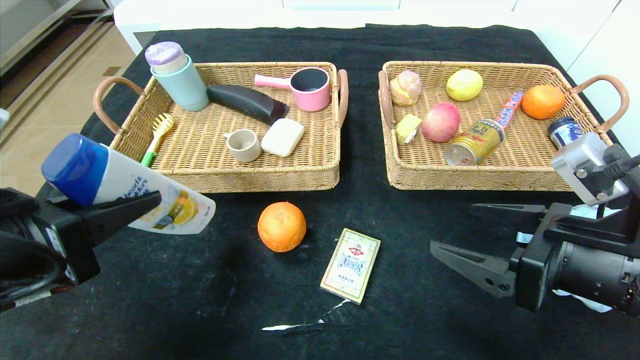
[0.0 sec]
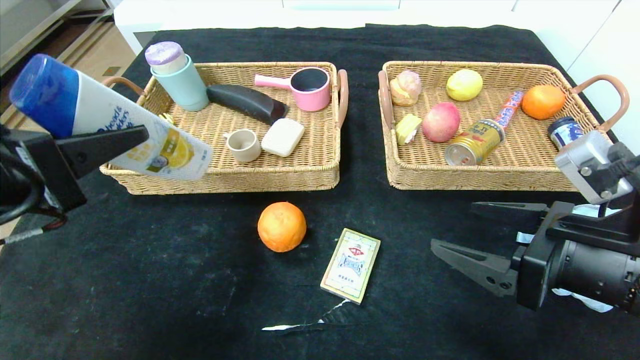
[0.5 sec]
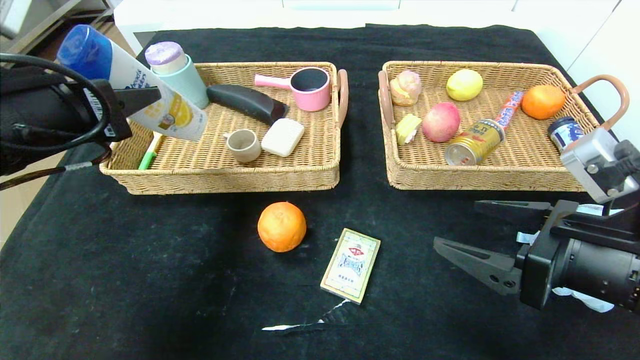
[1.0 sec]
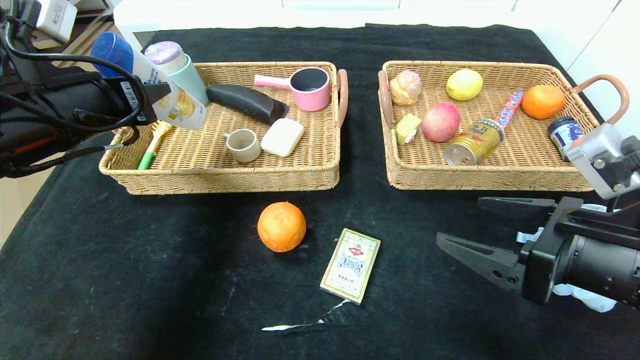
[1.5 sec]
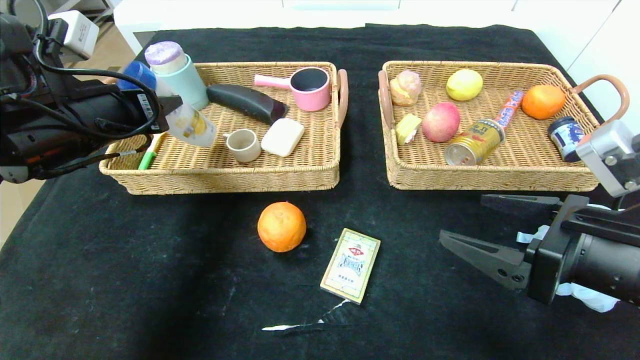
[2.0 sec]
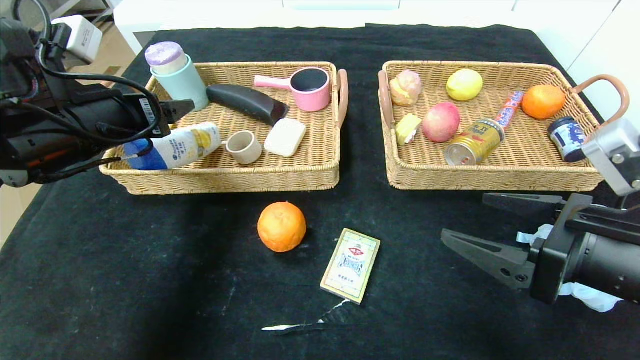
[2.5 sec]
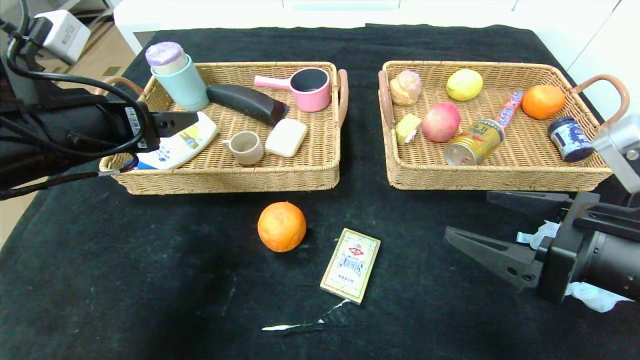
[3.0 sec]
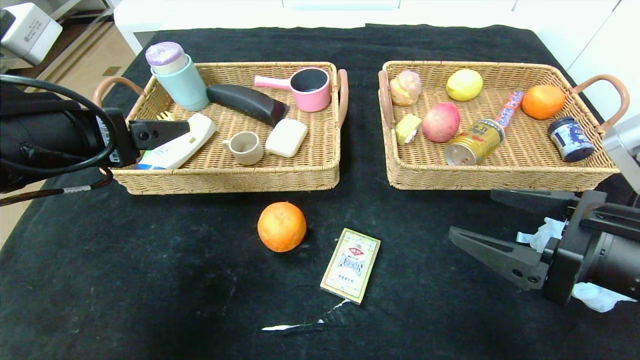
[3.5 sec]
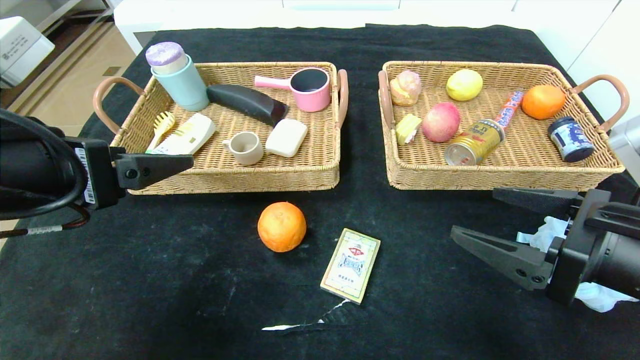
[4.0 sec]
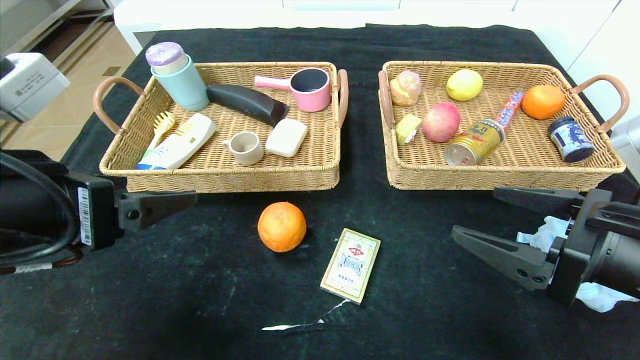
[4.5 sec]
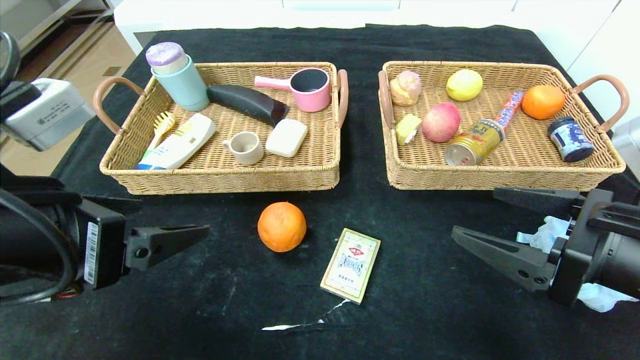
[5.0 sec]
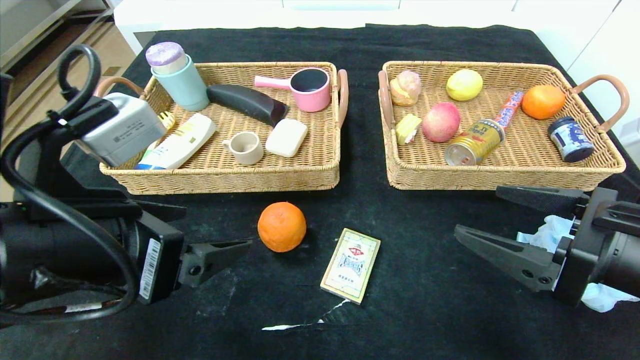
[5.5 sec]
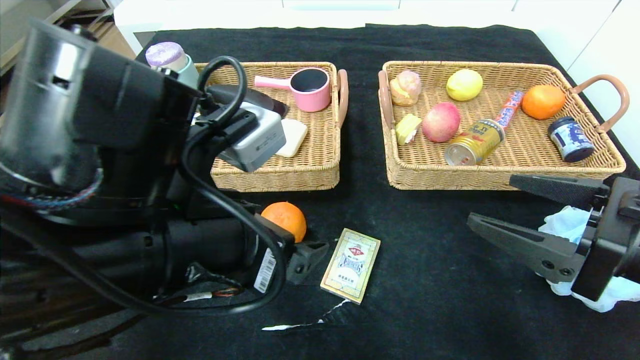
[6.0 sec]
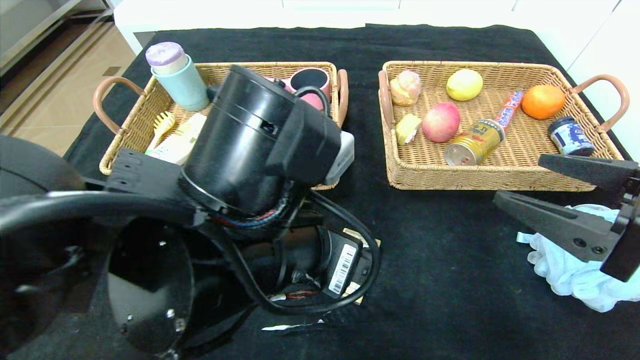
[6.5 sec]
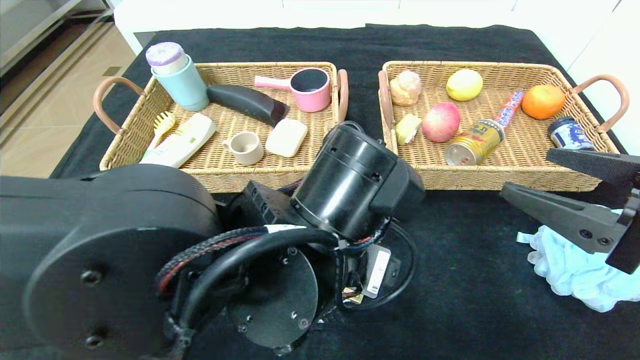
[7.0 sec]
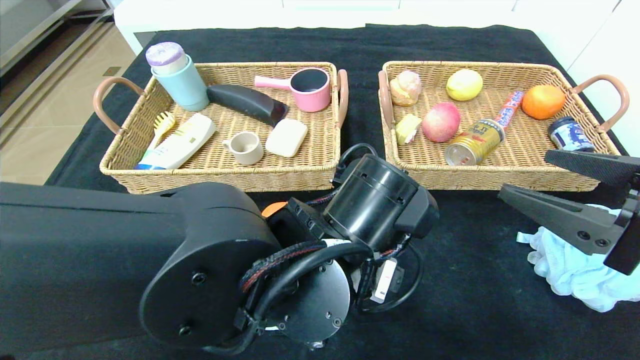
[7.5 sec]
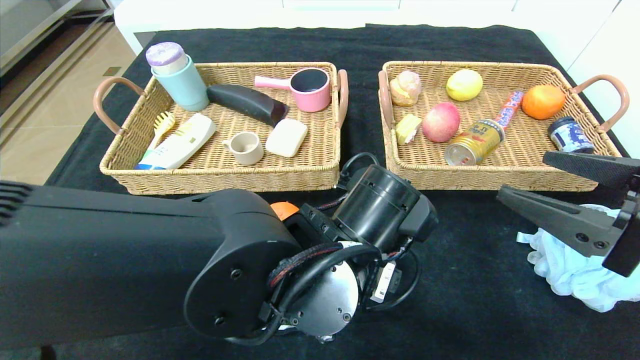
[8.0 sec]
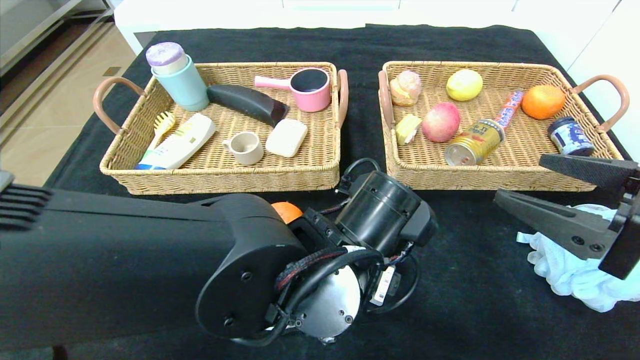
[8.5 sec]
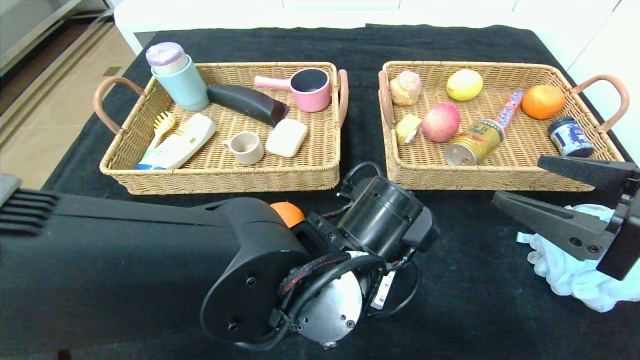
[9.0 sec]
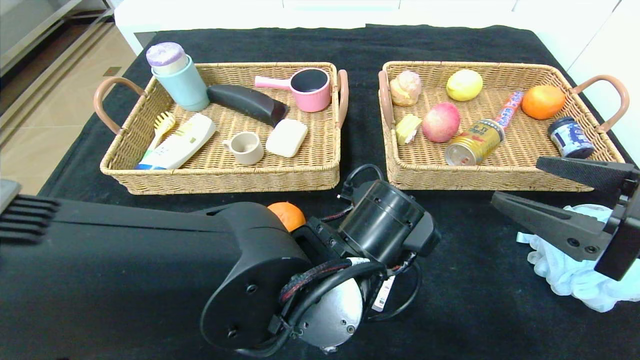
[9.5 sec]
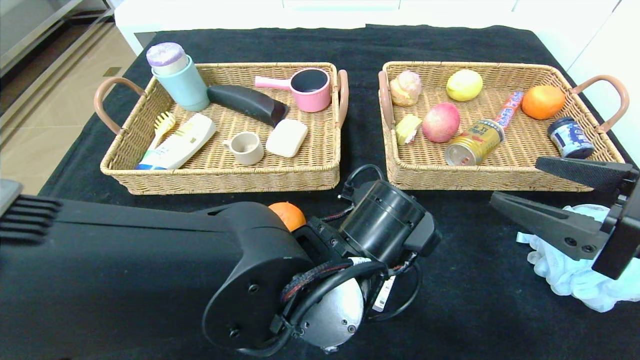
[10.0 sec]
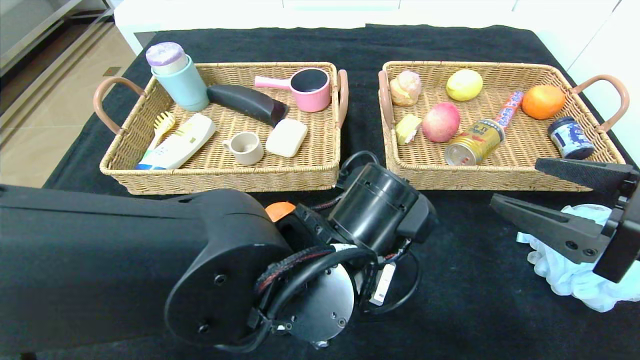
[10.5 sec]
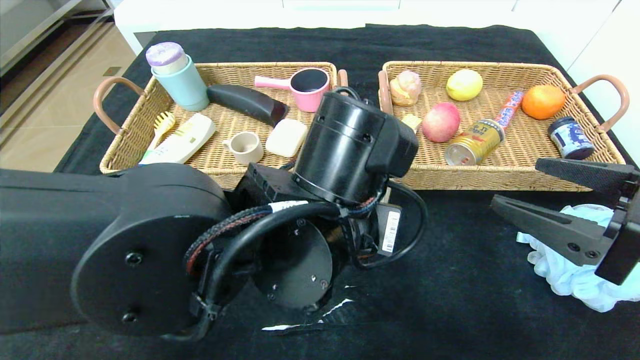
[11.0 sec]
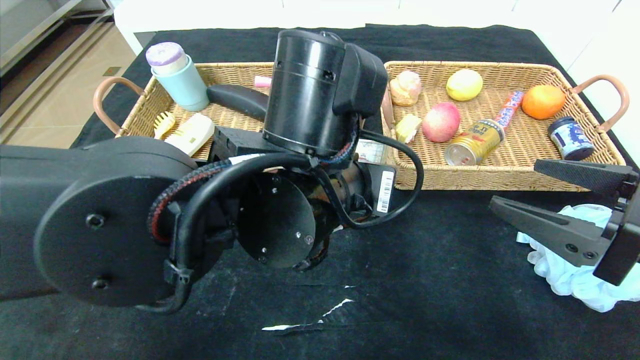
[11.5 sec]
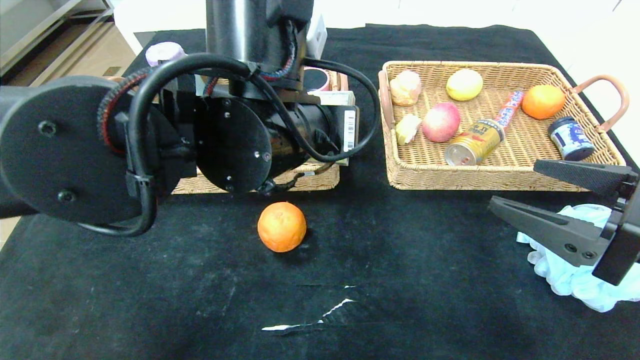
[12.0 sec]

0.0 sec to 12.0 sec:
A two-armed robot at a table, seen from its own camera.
Step, 0.0 sec to 2.0 sec: Grasp the shampoo and put it in the left basket.
0.0 sec to 2.0 sec: The left gripper heads forward, covering approximately 15 cm.
2.0 sec to 4.0 sec: The left gripper shifts approximately 10 cm backward, and opens its fingers.
4.0 sec to 6.0 sec: The left gripper travels to the right by about 15 cm.
6.0 sec to 8.0 sec: The left gripper heads to the right and downward, covering about 15 cm.
8.0 sec to 10.0 sec: The left gripper closes.
10.0 sec to 12.0 sec: The left gripper travels upward and to the left by approximately 15 cm.

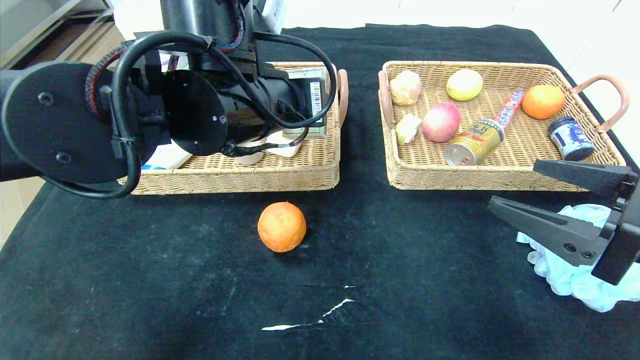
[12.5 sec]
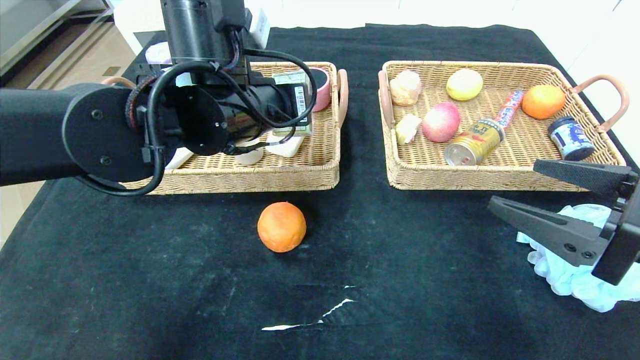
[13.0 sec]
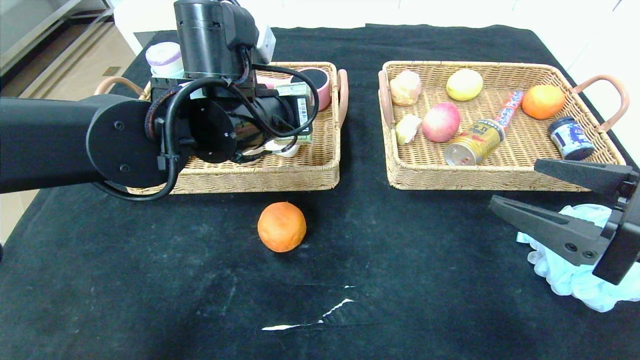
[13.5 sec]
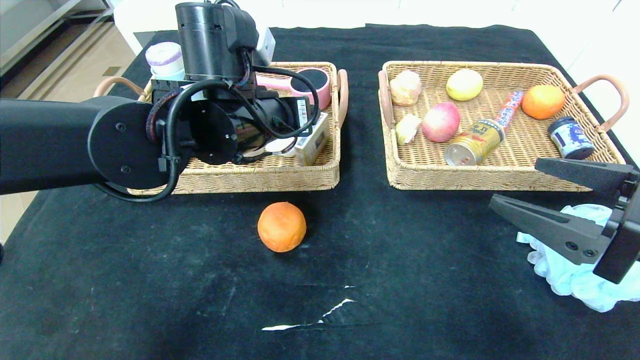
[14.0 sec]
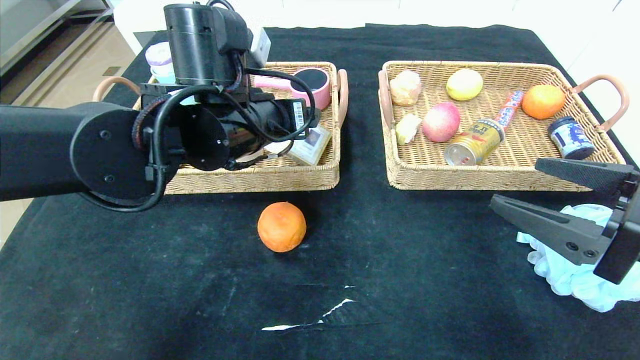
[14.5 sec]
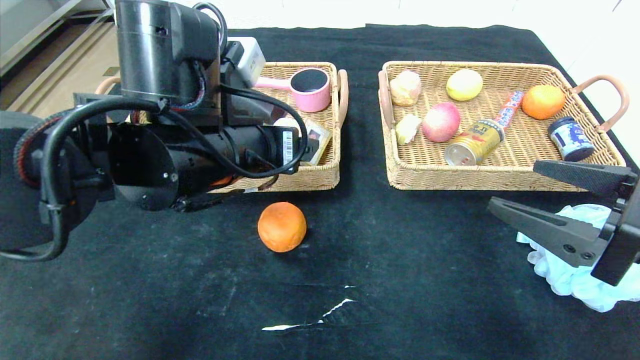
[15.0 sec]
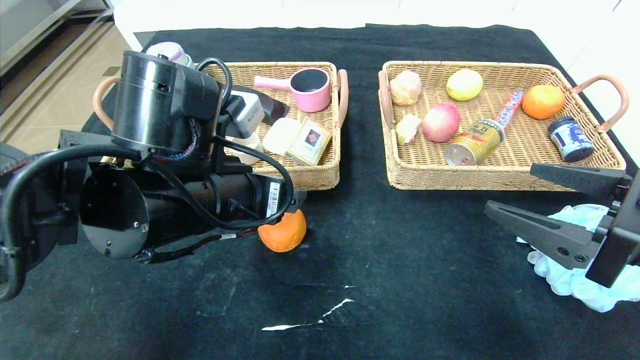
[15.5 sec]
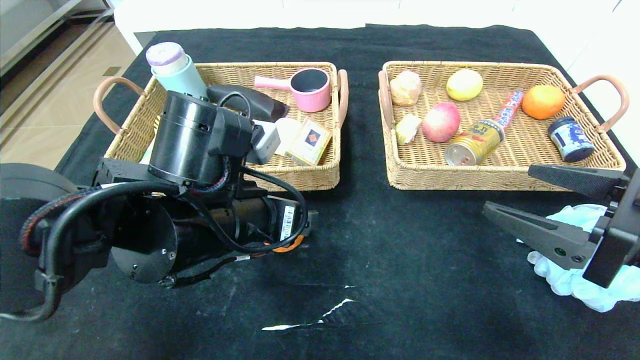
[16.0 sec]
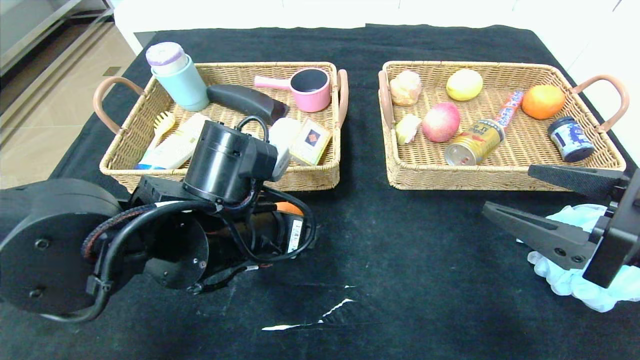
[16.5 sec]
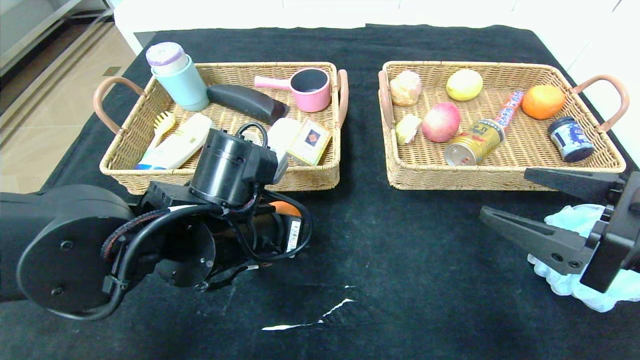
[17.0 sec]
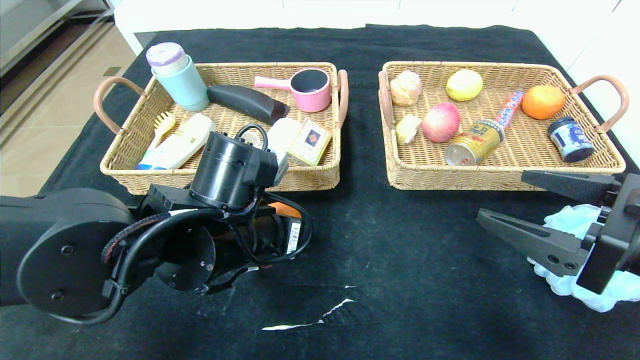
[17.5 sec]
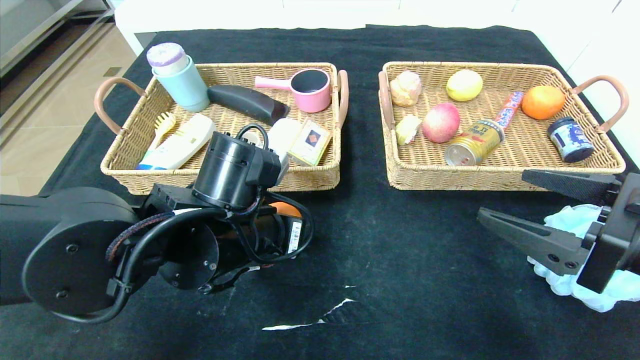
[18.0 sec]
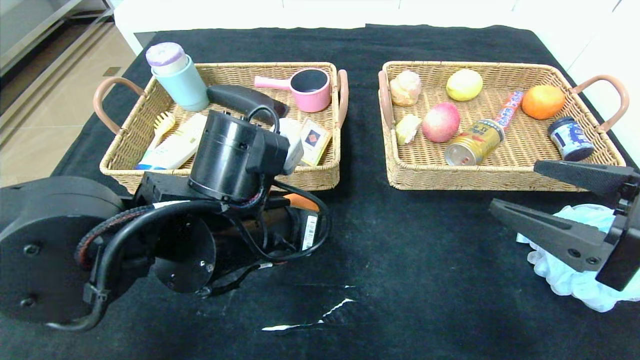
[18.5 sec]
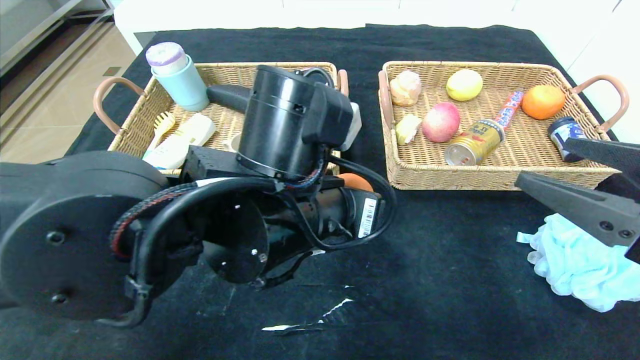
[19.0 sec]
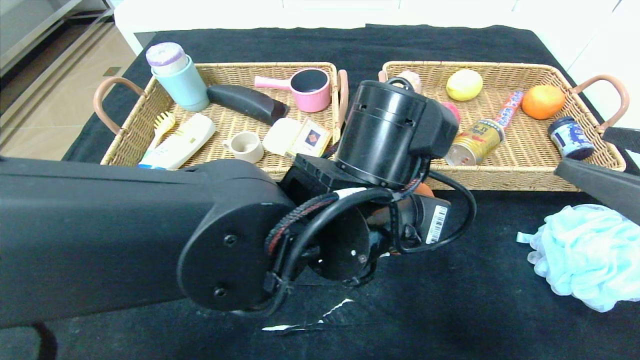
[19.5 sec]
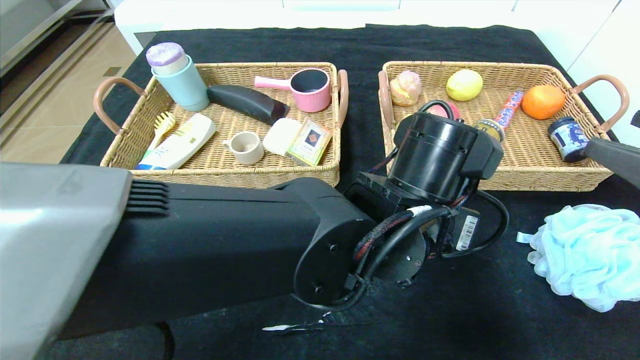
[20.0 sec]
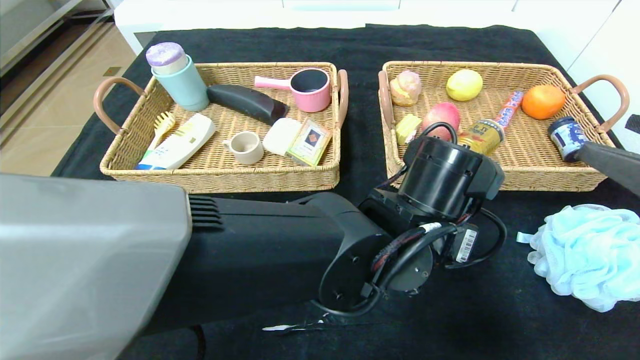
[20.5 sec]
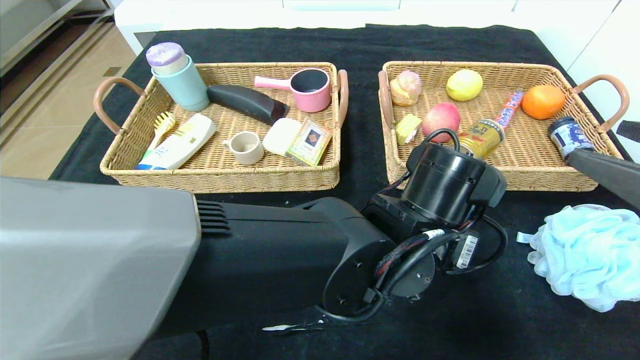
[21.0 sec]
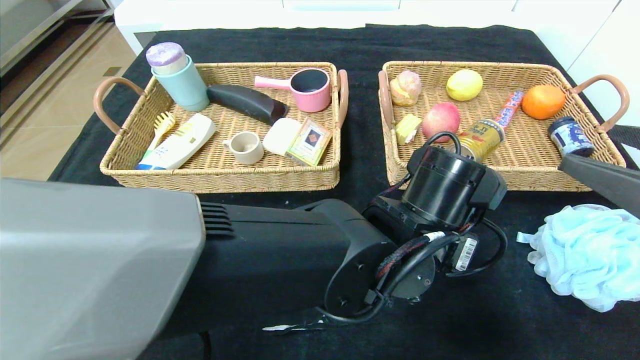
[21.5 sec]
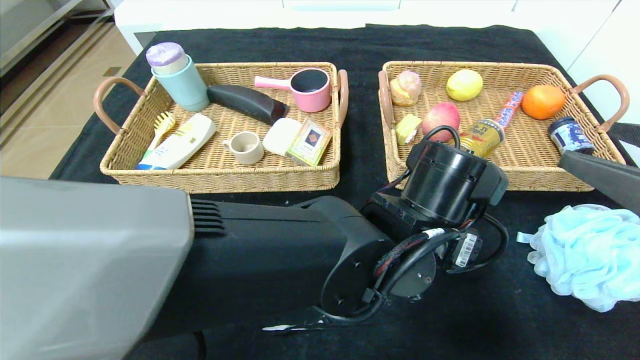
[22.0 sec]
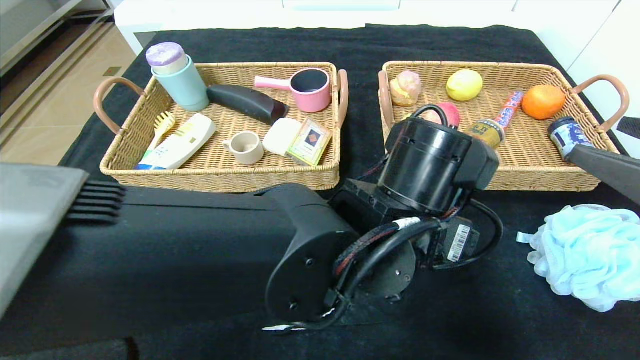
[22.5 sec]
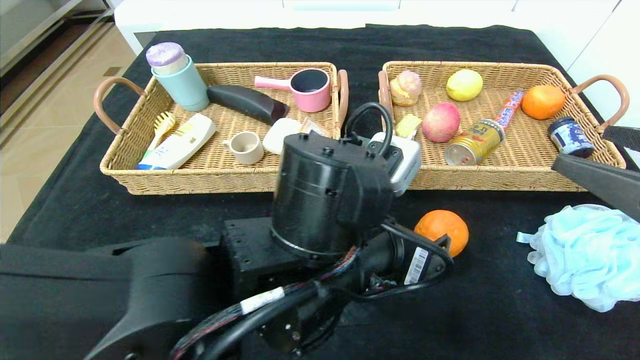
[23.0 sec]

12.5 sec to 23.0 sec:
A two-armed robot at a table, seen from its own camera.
Step, 14.0 sec to 22.0 sec: Place the orange in the center of the table.
12.5 sec to 14.5 sec: The left gripper opens its fingers.
14.5 sec to 16.5 sec: The left gripper is displaced downward and backward by approximately 10 cm.
16.5 sec to 19.0 sec: The left gripper heads to the right, covering some 5 cm, and closes its fingers.
19.0 sec to 21.0 sec: The left gripper goes approximately 15 cm to the right and downward.
21.0 sec to 23.0 sec: The left gripper shifts about 10 cm to the left, and opens up.
